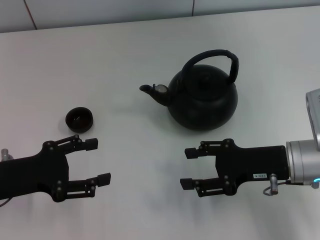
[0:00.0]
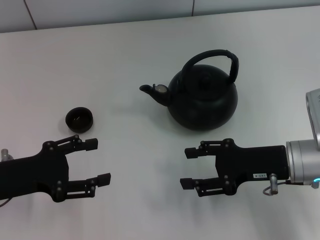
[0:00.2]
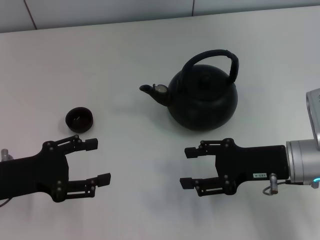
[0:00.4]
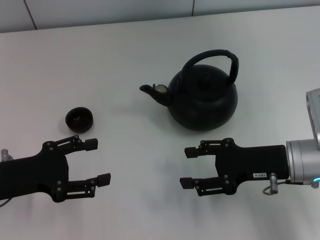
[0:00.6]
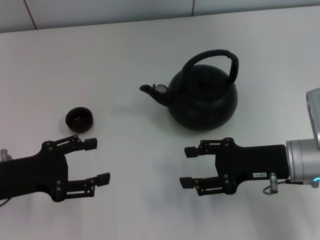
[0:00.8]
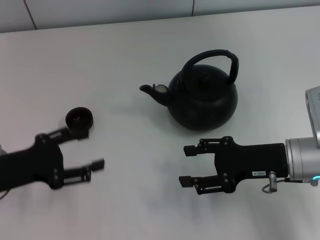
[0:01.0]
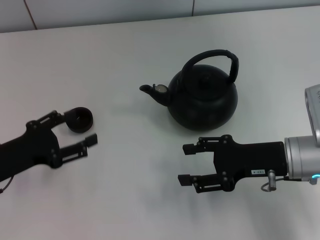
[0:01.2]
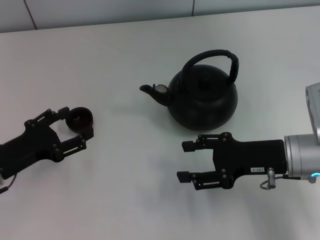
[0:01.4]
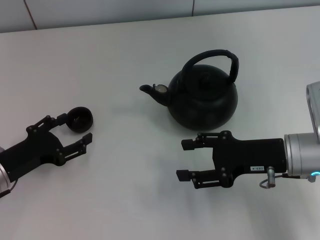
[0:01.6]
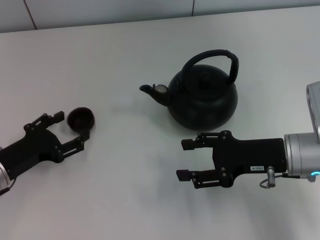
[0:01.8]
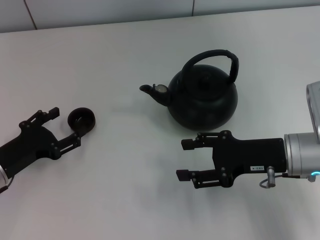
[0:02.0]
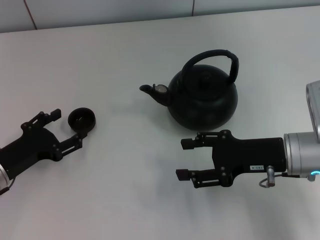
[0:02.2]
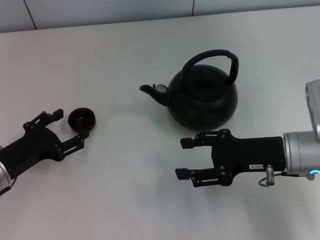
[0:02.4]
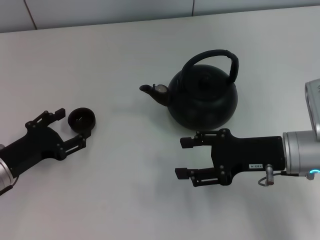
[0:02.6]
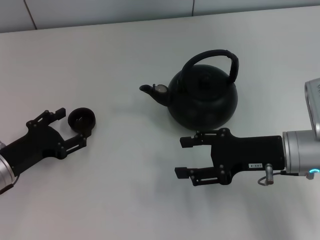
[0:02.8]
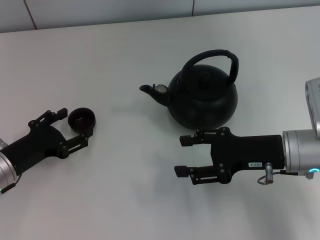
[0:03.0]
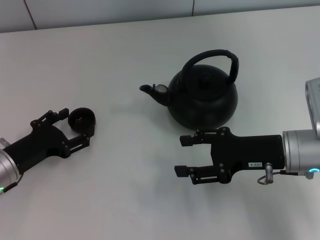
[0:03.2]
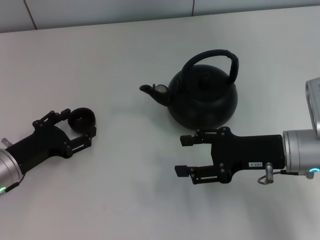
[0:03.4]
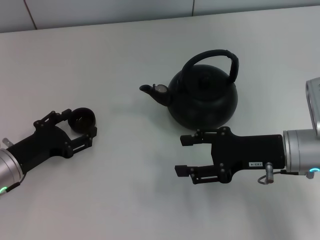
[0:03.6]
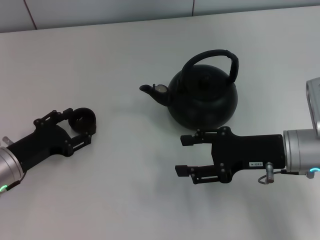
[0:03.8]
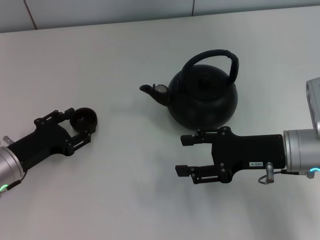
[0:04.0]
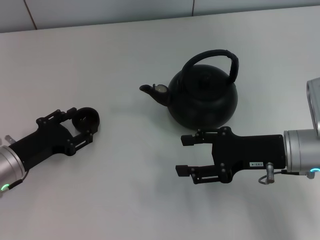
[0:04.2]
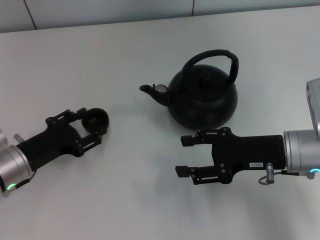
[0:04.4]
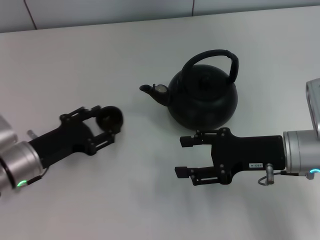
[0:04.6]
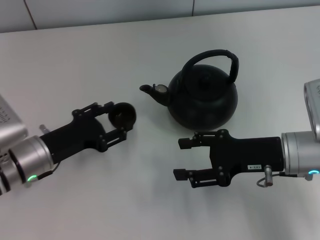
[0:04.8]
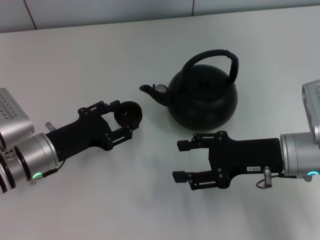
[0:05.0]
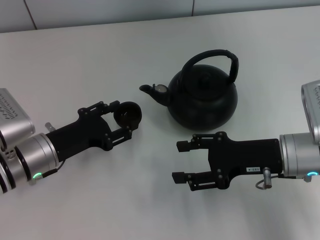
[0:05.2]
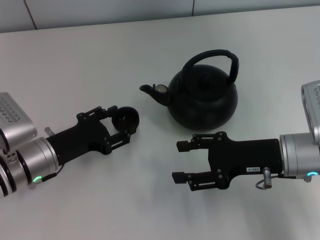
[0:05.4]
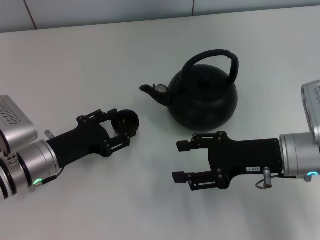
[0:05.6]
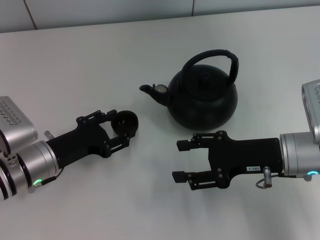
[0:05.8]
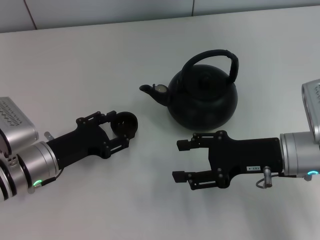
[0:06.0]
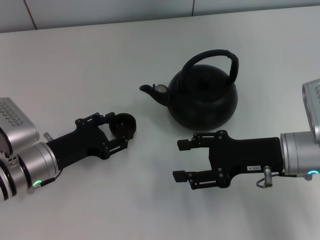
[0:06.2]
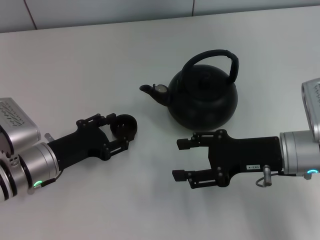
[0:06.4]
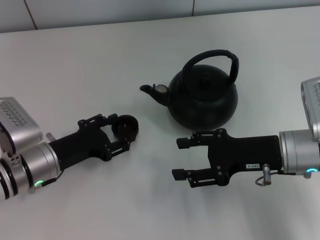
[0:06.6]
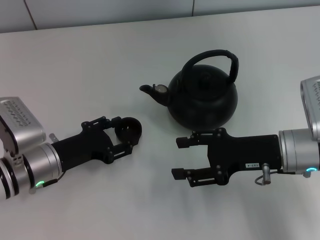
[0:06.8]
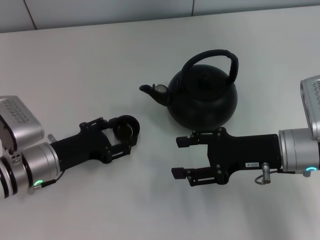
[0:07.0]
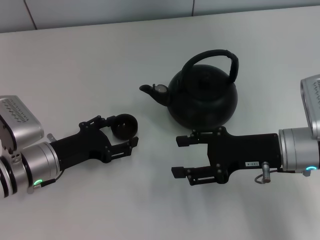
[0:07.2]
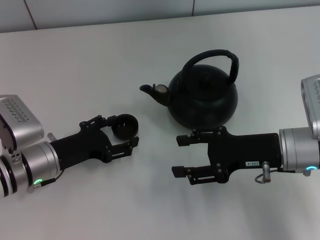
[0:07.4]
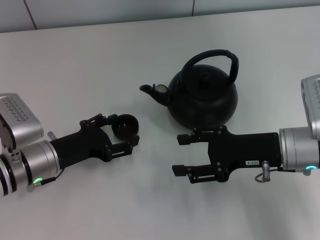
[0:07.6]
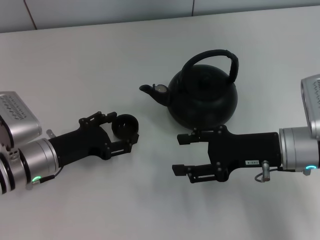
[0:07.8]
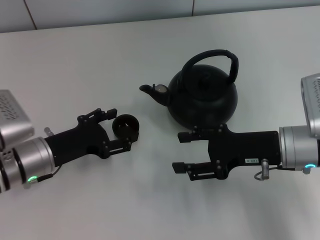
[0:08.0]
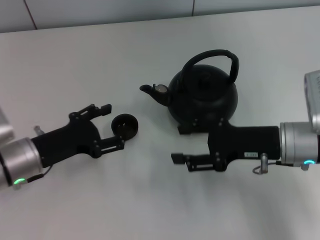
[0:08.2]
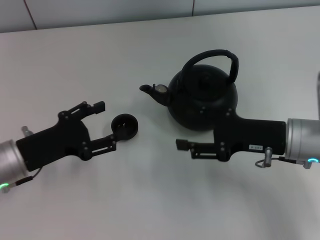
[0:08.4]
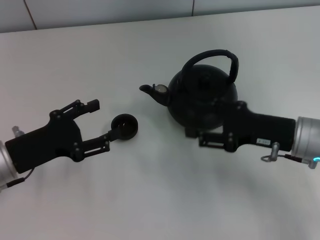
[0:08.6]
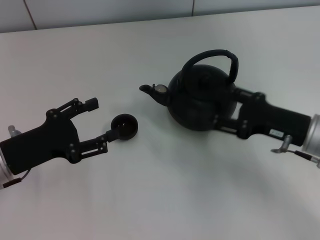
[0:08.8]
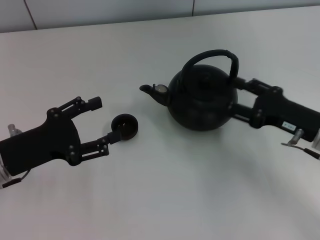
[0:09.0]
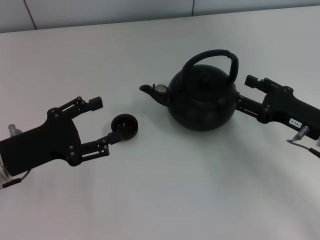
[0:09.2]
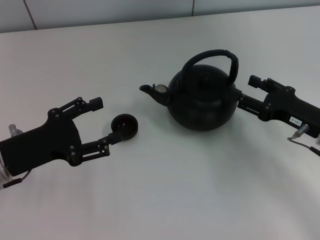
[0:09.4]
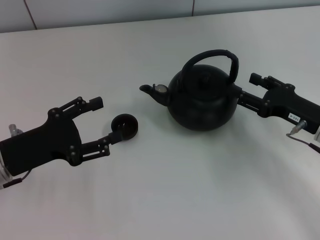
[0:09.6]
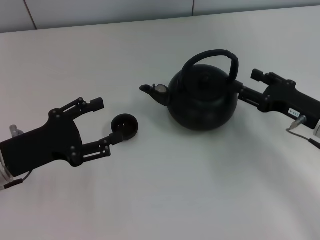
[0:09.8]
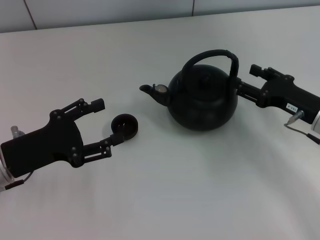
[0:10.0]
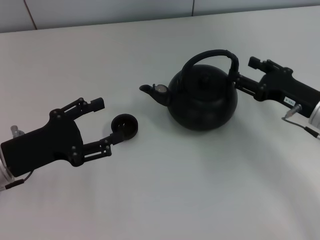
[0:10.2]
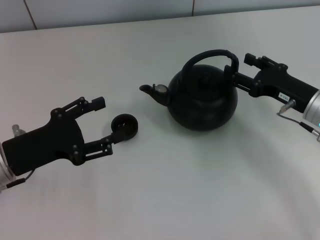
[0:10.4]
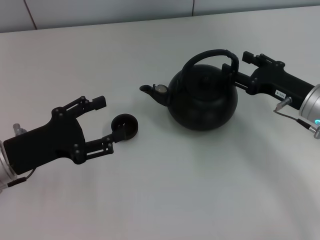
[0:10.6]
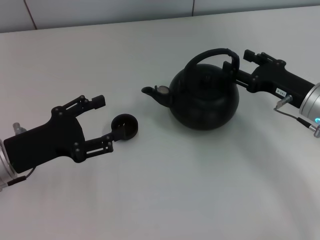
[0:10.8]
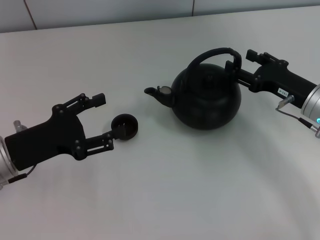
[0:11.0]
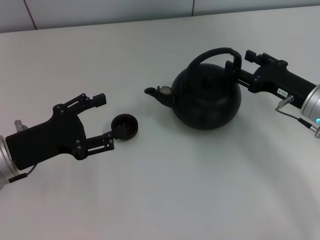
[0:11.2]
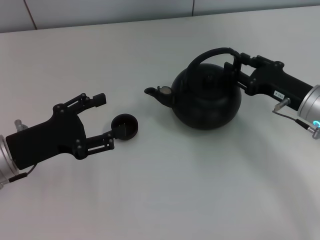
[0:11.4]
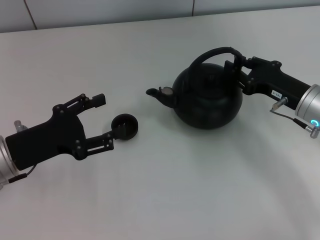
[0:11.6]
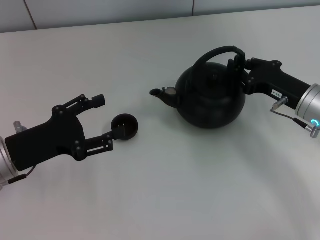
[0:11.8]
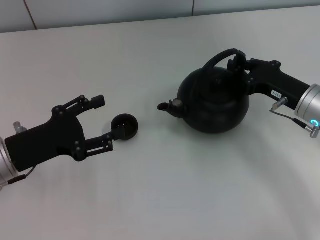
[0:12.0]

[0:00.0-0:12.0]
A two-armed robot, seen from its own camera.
Task of the whole recording: Grasp the handle of the teapot with one hand and pour tea into the teacup.
Step, 0:00.0 to 0:04.8: Pick up the teacup with the left gripper.
Step, 0:05.0 to 0:08.6: Place the teacup in the center of view with the left gripper.
0:00.0 to 0:01.6: The left gripper moves downward, some 5 cm.
0:01.6 to 0:03.0: The grippers move only a little.
0:03.0 to 0:04.4: The left gripper closes its fingers.
0:04.4 to 0:06.0: The grippers make only small movements.
0:06.0 to 0:07.6: The left gripper opens.
0:07.6 to 0:09.0: The right gripper shifts about 5 cm to the right; the left gripper is displaced upward by roughly 5 cm.
0:09.0 to 0:10.4: The grippers make only small movements.
0:10.4 to 0:12.0: The right gripper closes.

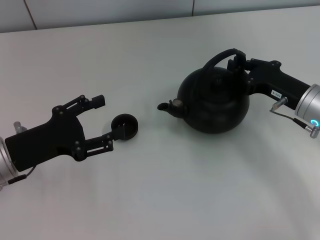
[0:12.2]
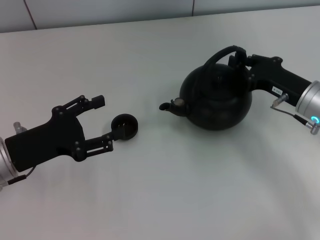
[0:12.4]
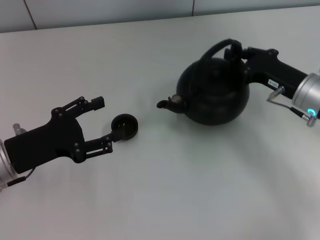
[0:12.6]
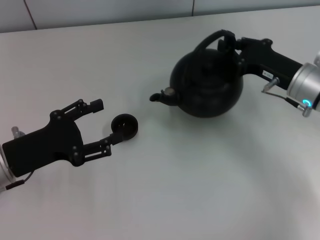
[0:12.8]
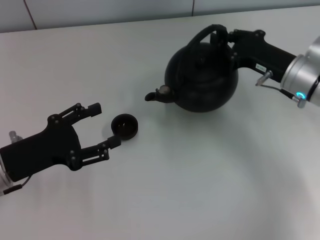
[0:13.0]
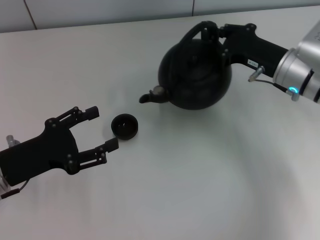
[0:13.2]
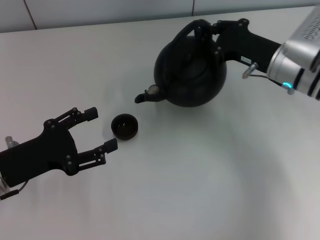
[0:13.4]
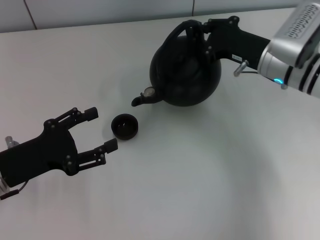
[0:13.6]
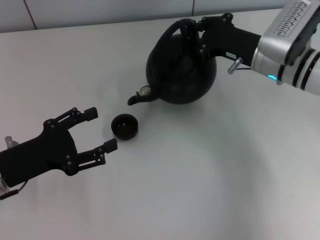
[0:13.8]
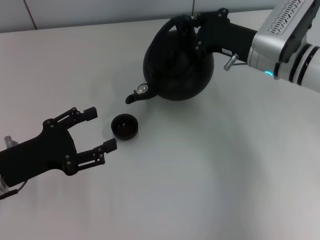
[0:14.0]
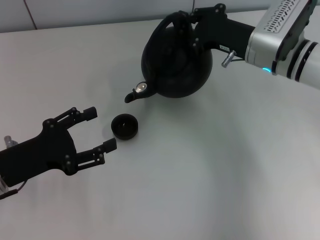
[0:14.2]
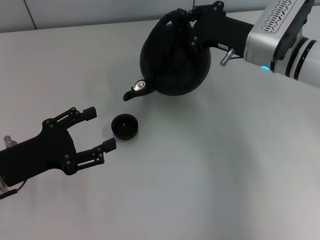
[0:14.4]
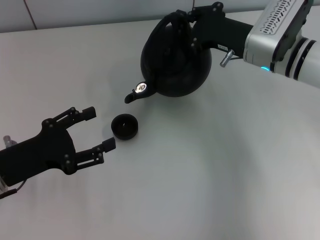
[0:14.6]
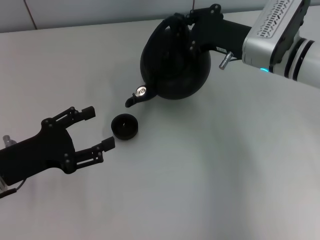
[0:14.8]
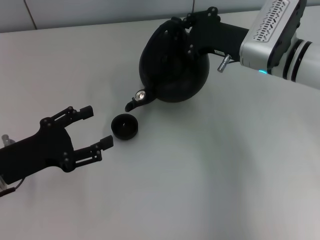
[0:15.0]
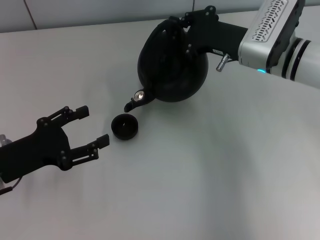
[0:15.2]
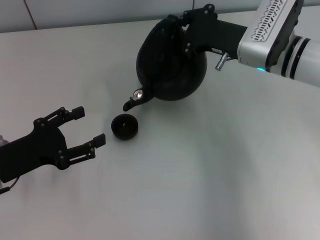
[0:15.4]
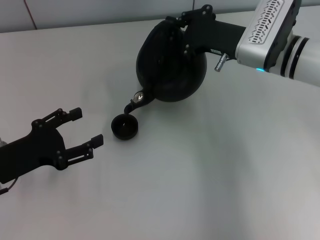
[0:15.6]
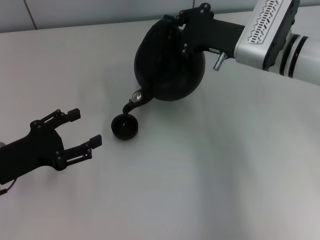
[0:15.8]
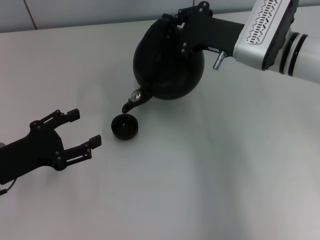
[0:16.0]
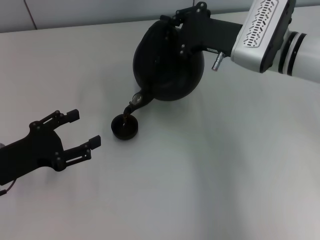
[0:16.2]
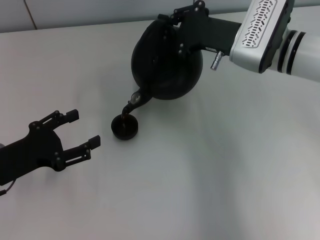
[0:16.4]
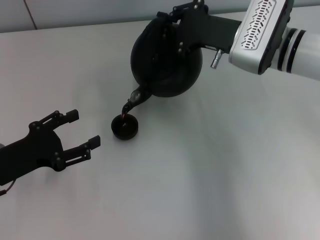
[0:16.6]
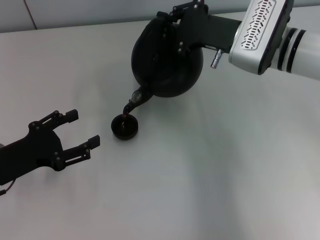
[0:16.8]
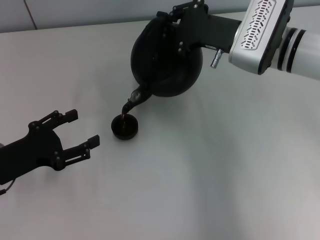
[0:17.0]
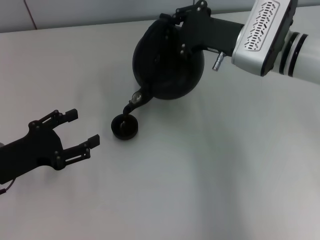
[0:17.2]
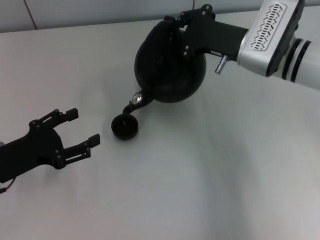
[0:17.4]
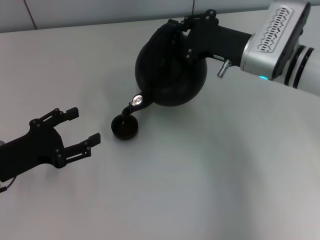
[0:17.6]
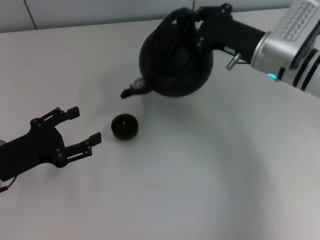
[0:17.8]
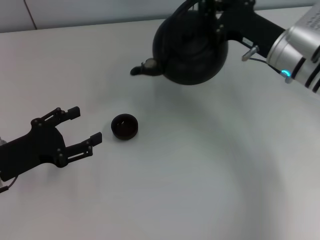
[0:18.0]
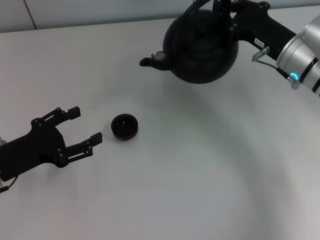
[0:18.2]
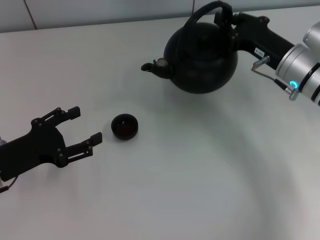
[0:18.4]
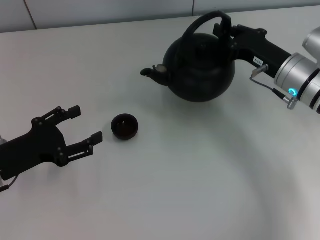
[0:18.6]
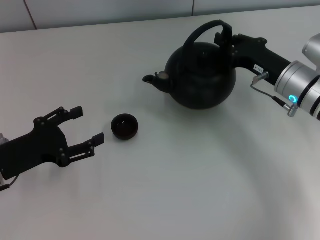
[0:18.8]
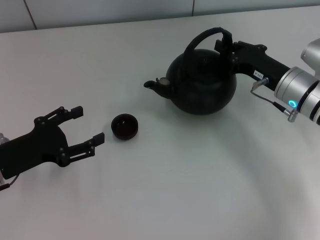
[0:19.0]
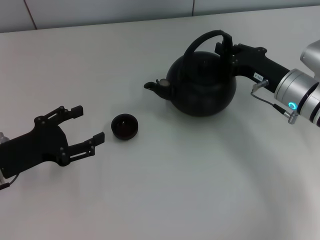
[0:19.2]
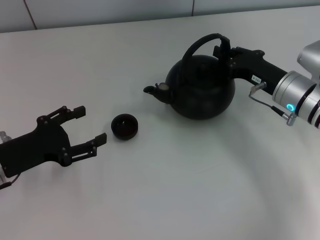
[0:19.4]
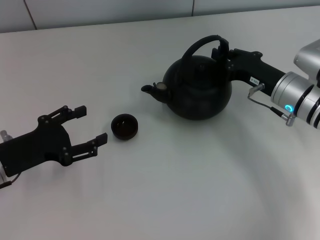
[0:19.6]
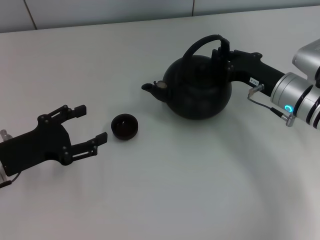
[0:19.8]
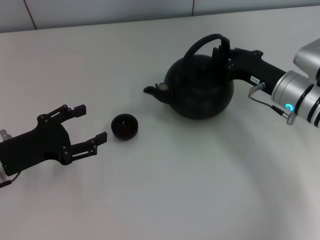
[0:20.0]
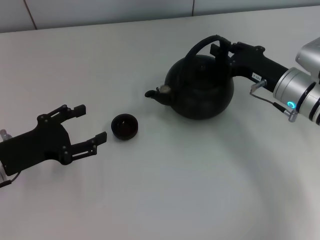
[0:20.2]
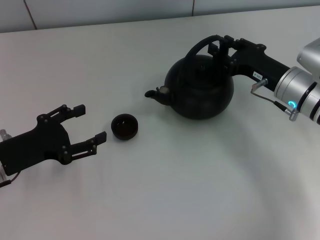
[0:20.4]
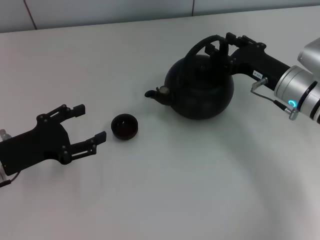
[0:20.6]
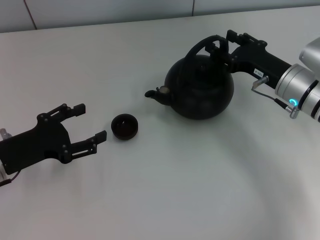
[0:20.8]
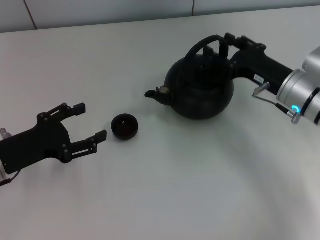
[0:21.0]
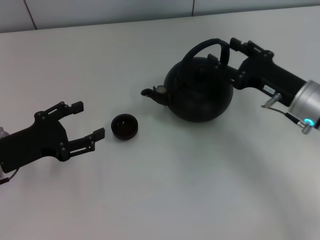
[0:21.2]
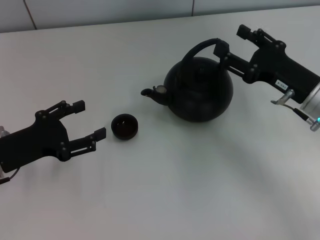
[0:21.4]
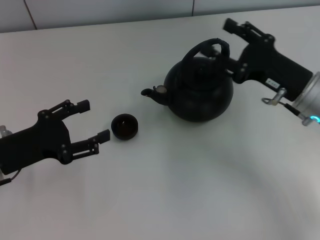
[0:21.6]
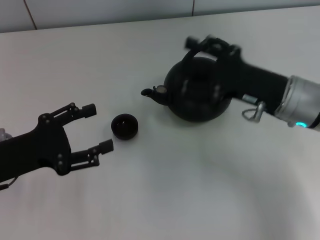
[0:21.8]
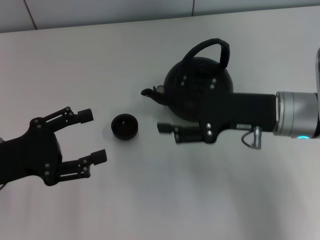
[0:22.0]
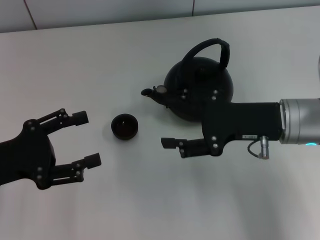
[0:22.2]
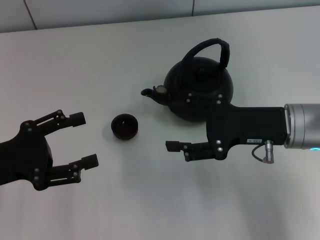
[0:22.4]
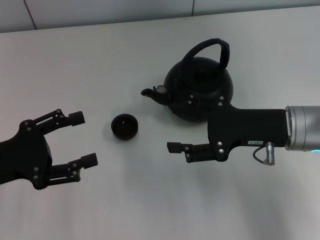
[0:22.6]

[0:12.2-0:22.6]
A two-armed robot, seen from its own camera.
Task of the whole recording: Grasp the handle of the teapot with one hand and pour tea into the teacup.
Step, 0:17.8 to 0:21.8: Put down the teapot with the right gripper.
0:12.2 to 0:13.6: The right gripper heads forward and to the left, covering some 10 cm.
0:13.6 to 0:15.2: The grippers stay close to where they were, moving slightly.
0:15.2 to 0:16.6: The grippers stay close to where they were, moving slightly.
0:16.6 to 0:18.2: The right gripper shifts some 5 cm to the right.
0:18.2 to 0:19.6: The right gripper moves downward, roughly 5 cm.
0:19.6 to 0:21.2: The right gripper opens.
0:21.2 to 0:22.6: The right gripper ends up roughly 5 cm from where it was.
